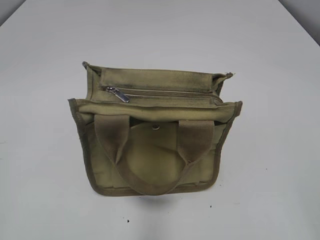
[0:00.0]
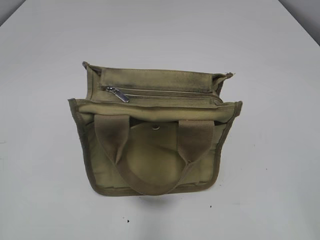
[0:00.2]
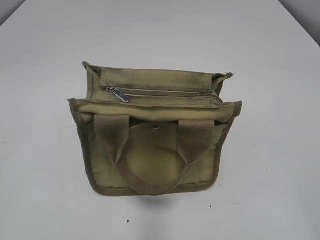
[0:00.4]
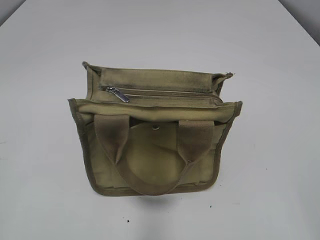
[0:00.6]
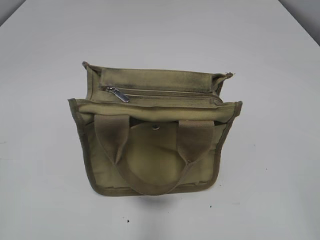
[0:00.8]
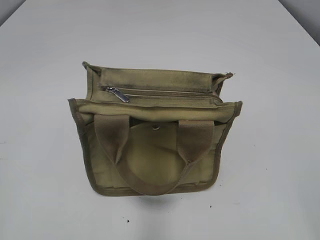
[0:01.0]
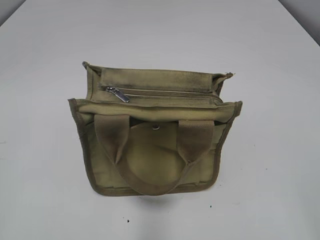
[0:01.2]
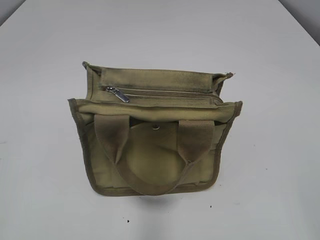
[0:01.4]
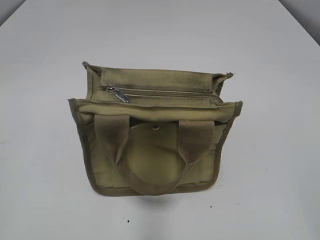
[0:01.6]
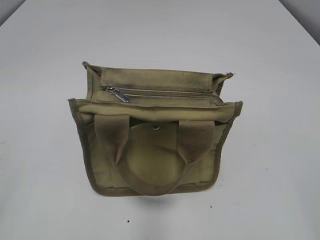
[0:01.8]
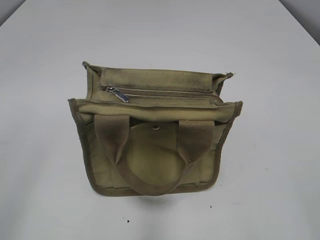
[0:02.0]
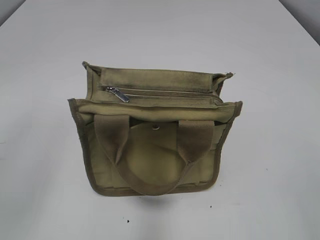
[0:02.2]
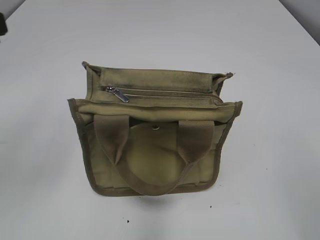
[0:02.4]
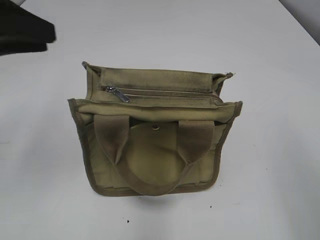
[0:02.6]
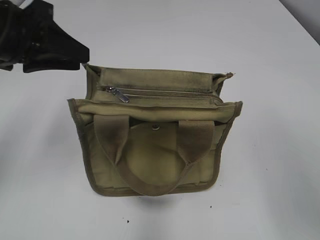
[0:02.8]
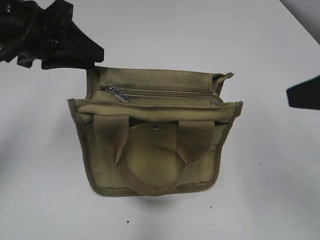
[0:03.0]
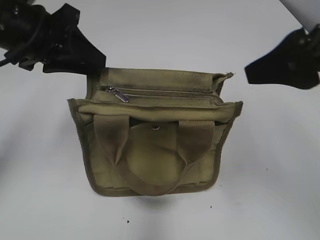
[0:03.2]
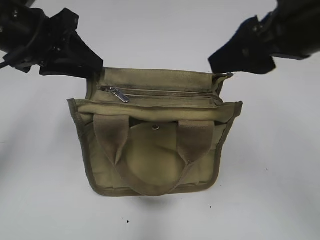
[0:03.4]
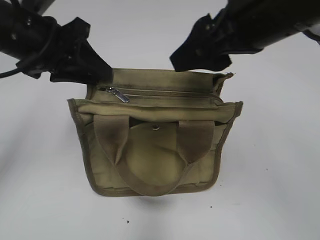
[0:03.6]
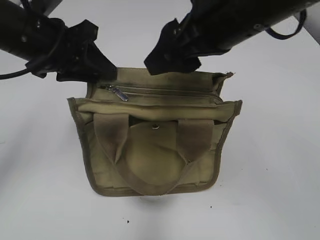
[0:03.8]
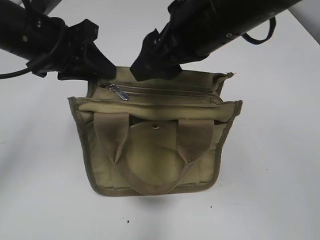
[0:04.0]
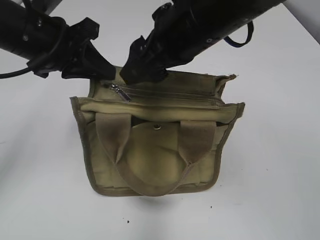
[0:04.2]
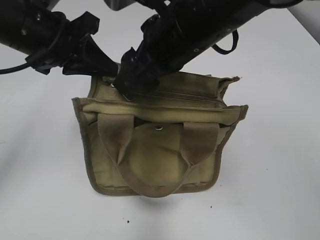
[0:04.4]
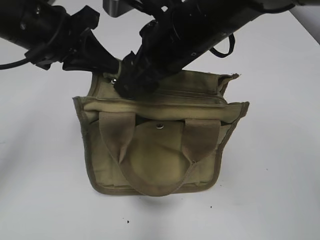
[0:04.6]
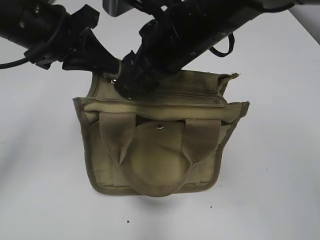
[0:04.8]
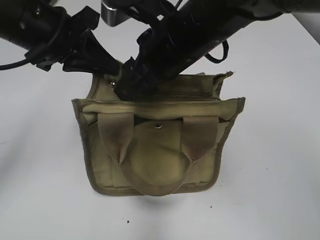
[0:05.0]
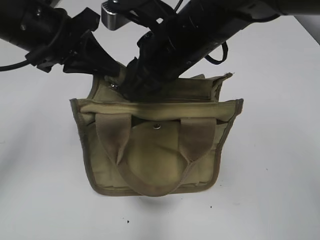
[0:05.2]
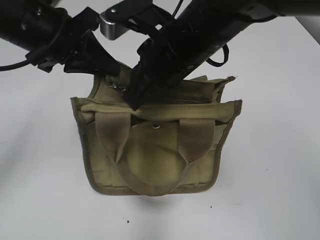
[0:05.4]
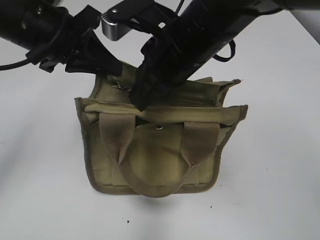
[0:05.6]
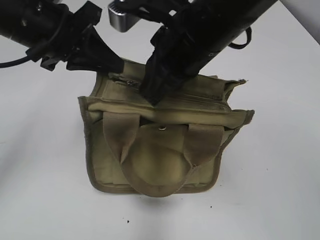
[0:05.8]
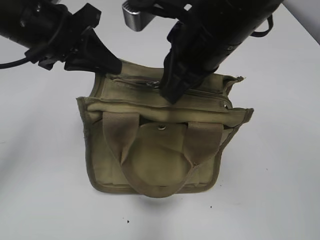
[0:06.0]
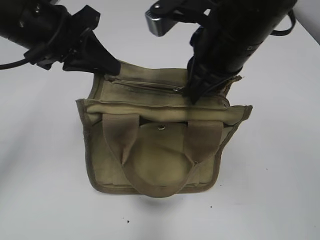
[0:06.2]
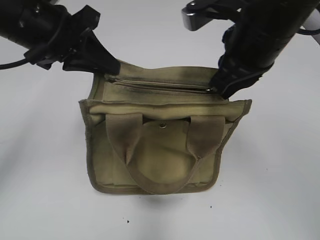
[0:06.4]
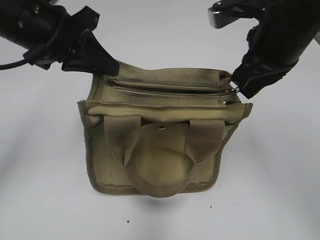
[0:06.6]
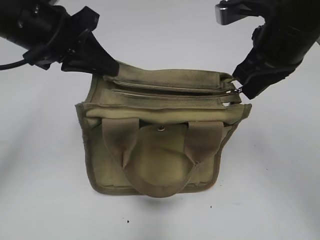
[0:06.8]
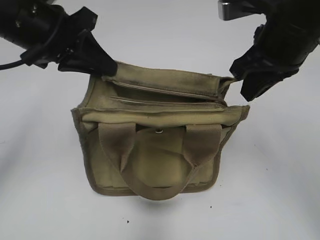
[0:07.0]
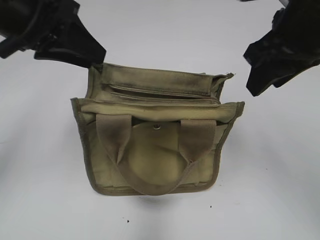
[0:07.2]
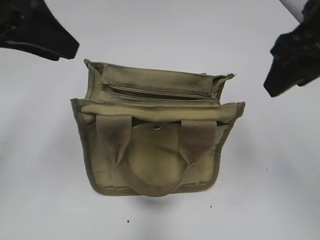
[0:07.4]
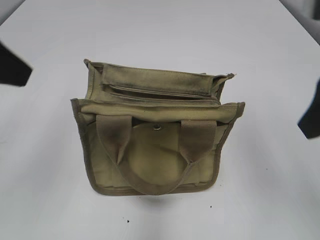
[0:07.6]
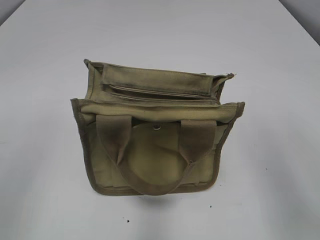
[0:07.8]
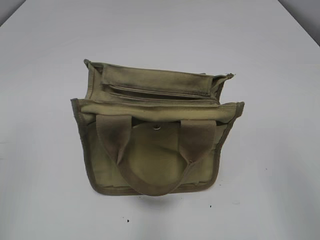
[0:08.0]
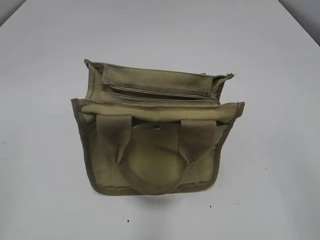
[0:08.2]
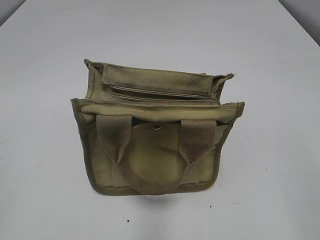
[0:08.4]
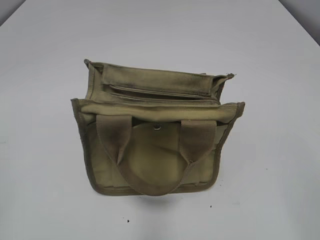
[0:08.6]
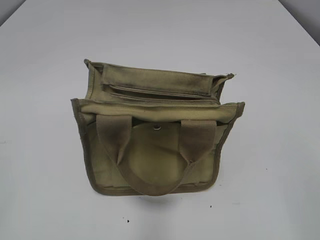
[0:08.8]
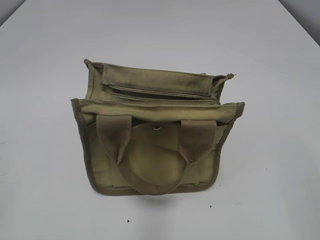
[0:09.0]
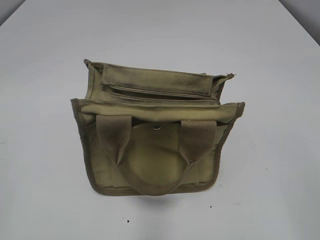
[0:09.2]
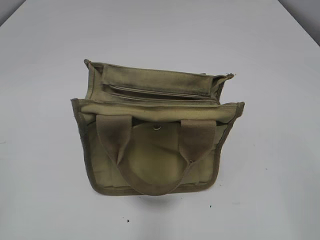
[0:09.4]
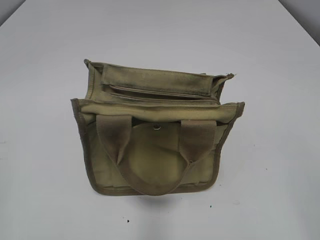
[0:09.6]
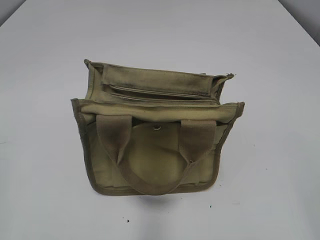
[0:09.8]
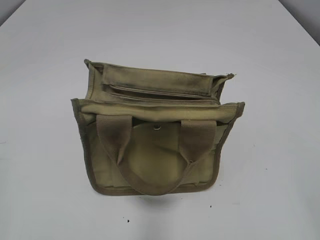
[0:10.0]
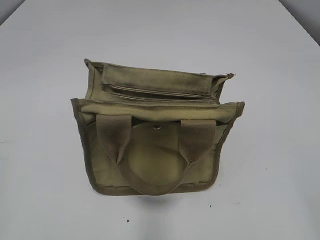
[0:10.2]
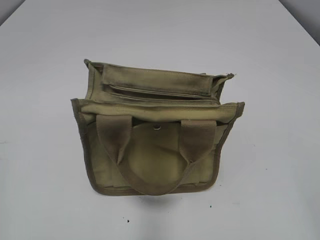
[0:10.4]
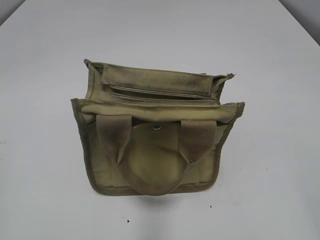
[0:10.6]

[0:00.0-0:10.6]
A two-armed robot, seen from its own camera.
Step, 0:00.0 to 0:06.8: Pull open the zipper with your right hand.
Step, 0:07.0 to 0:07.2: Hold the bag with your left hand.
0:01.6 to 0:03.0: The right gripper travels forward by roughly 15 cm; the left gripper is displaced forward and to the right by roughly 30 cm.
0:03.0 to 0:04.6: The right gripper goes roughly 25 cm to the left and forward. Meanwhile the left gripper closes its fingers.
0:04.6 to 0:06.0: The right gripper closes.
0:06.0 to 0:07.6: The right gripper heads to the right and backward, covering roughly 15 cm, and opens up. The left gripper goes about 15 cm backward, upward and to the left, and opens its fingers.
0:07.6 to 0:09.0: The right gripper travels backward by approximately 20 cm; the left gripper is displaced backward and to the left by roughly 25 cm.

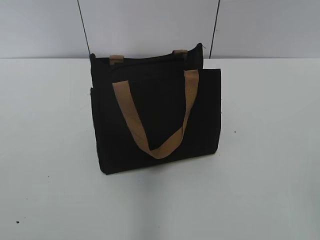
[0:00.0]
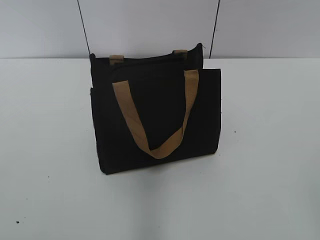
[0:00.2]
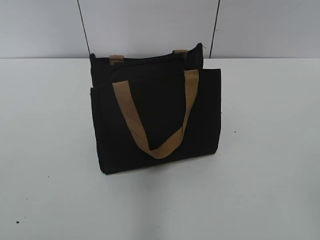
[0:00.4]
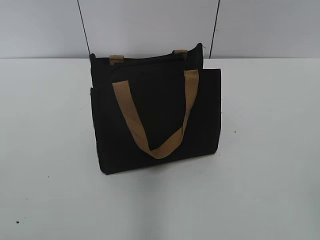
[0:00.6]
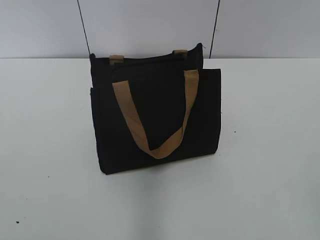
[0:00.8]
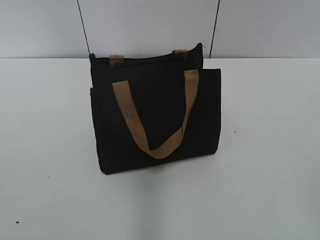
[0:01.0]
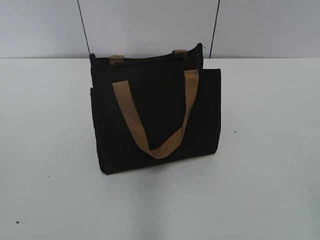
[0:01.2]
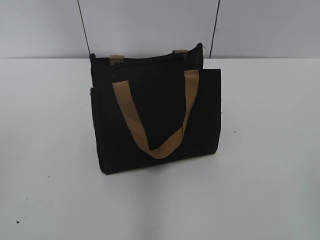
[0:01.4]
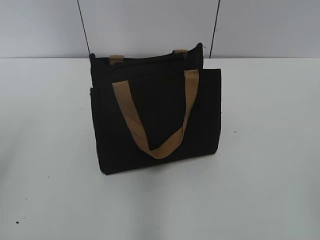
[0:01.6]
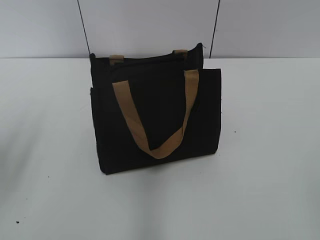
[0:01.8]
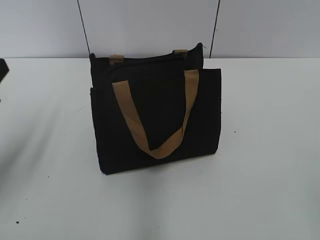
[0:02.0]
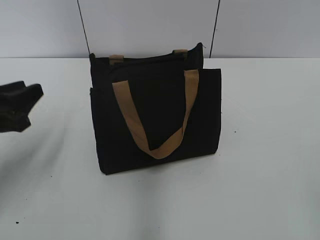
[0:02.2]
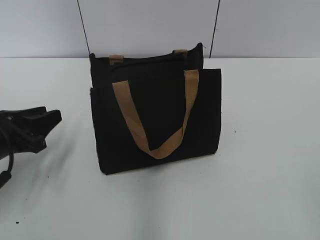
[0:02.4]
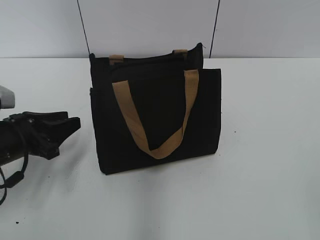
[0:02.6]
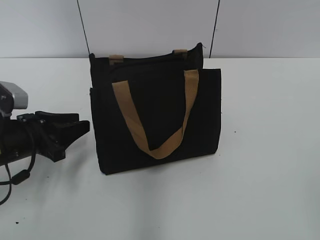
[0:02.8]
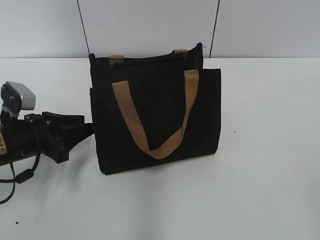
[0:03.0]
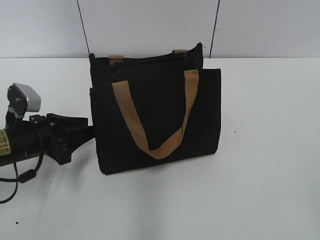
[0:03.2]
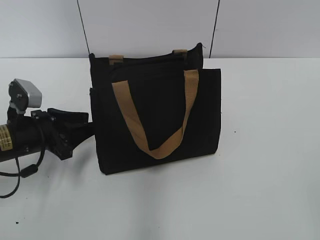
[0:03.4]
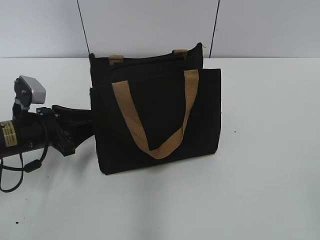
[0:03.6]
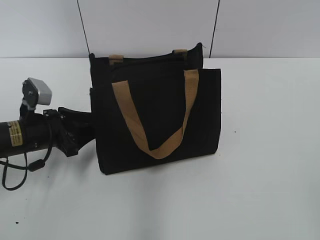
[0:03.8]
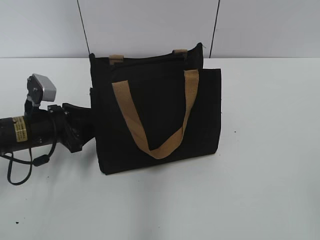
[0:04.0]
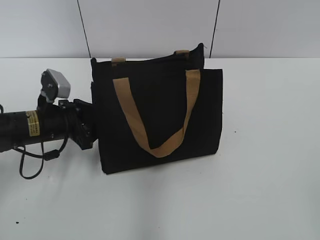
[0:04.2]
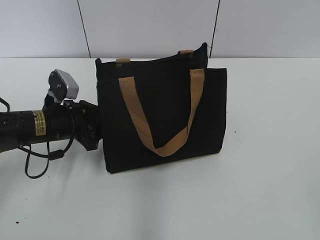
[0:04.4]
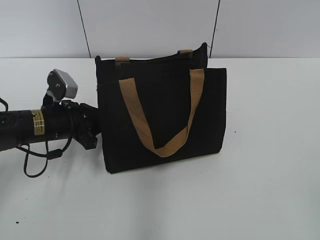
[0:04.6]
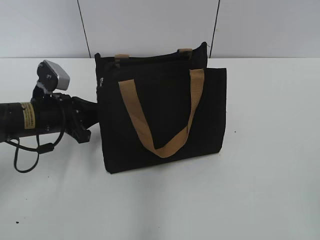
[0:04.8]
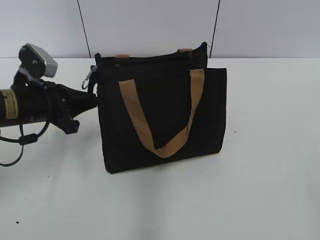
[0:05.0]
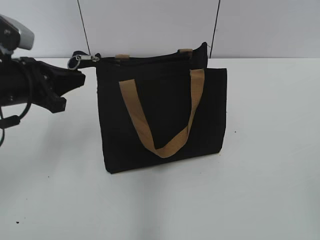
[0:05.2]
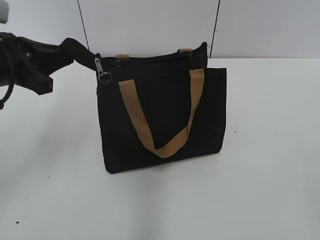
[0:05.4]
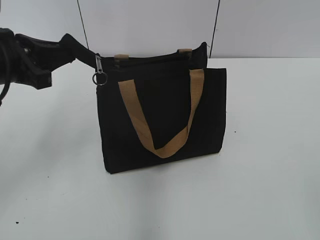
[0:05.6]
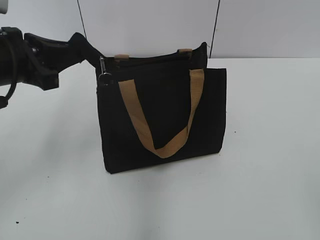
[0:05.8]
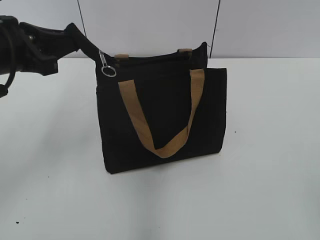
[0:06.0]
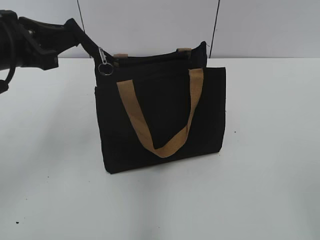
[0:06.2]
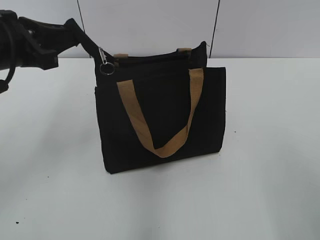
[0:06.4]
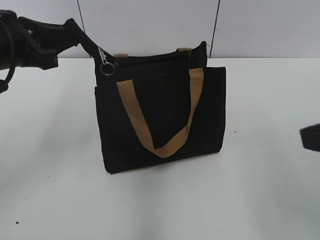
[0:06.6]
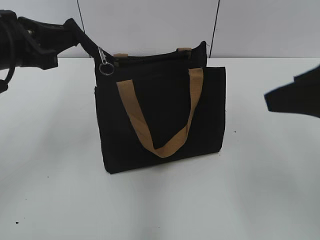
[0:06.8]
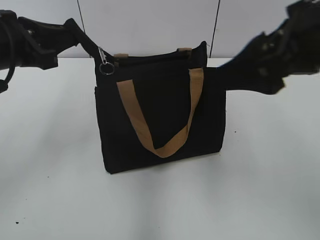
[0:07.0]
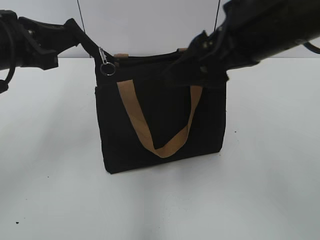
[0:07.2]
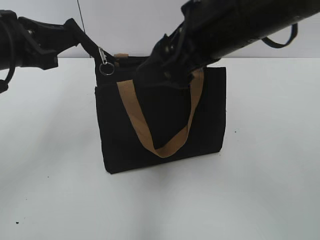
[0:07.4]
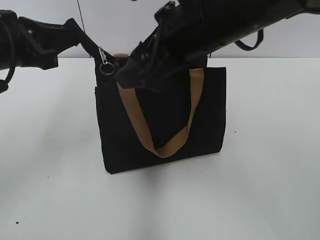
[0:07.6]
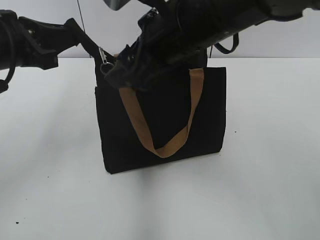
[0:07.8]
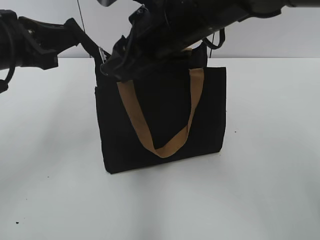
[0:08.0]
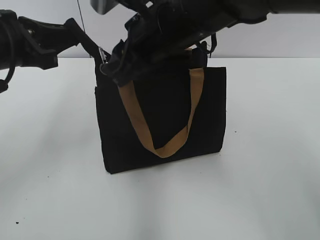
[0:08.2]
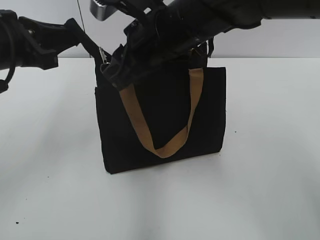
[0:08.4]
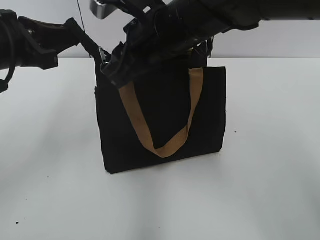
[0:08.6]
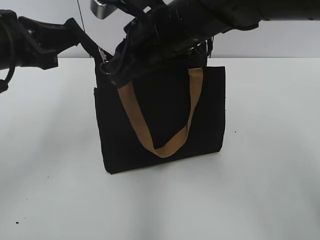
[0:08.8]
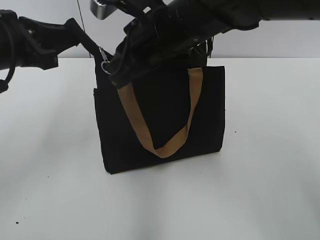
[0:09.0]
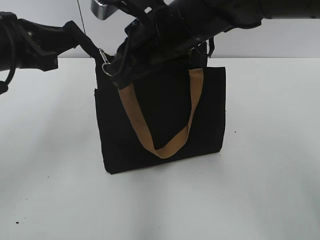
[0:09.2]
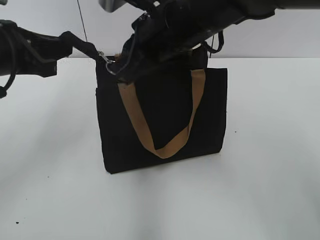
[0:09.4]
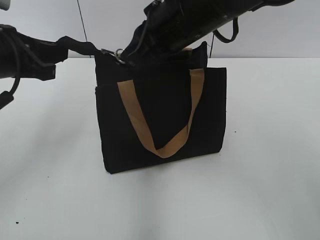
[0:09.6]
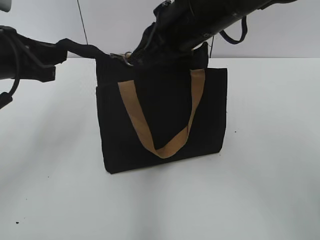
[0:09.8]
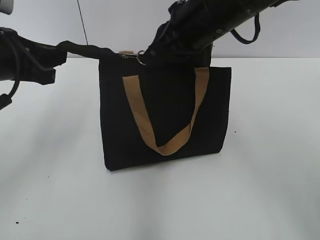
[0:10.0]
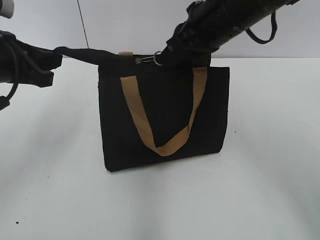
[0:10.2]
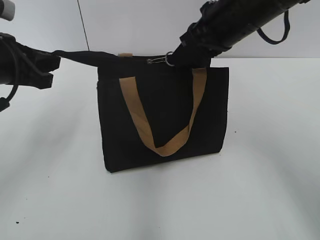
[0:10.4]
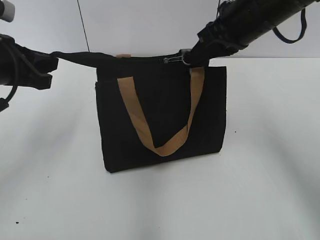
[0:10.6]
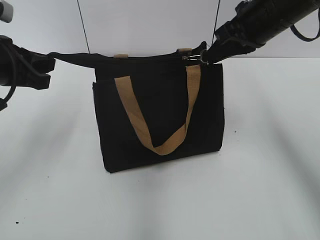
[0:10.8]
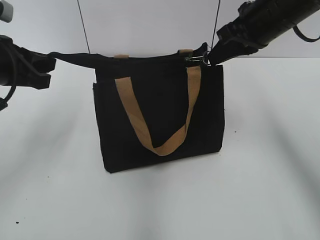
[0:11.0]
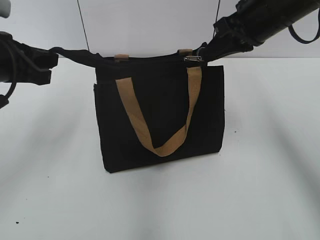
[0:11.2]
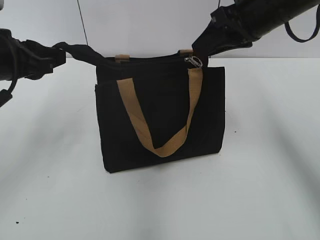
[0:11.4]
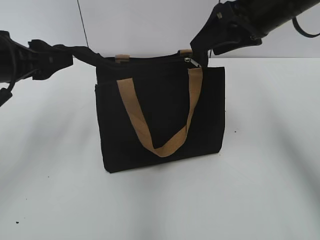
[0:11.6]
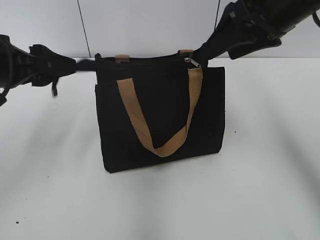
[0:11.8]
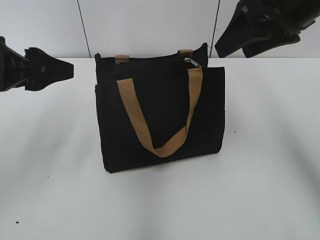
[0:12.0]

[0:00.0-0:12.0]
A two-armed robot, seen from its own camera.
Step, 0:00.0 to 0:11.2: Zip up the bag with your right hand.
0:01.6 to 0:03.0: The left gripper goes about 25 cm downward and forward.
0:03.0 to 0:04.4: The left gripper changes place by roughly 5 cm.
0:04.4 to 0:06.0: The left gripper is displaced upward by about 15 cm, and closes up.
0:06.0 to 0:07.6: The right gripper moves forward and to the left, some 35 cm.
0:07.6 to 0:09.0: The right gripper shifts by some 5 cm, and closes up.
0:09.0 to 0:10.4: The right gripper goes about 10 cm to the right.
0:10.4 to 0:12.0: The left gripper opens. Meanwhile the right gripper goes some 5 cm to the right, and opens up.
